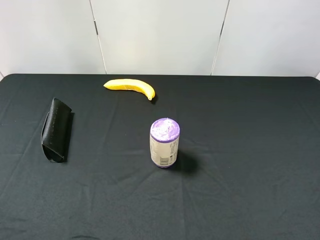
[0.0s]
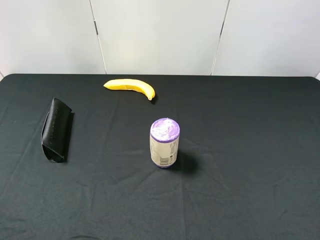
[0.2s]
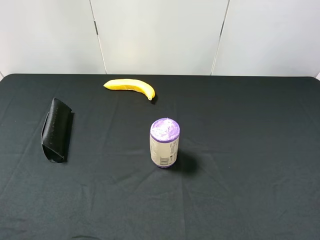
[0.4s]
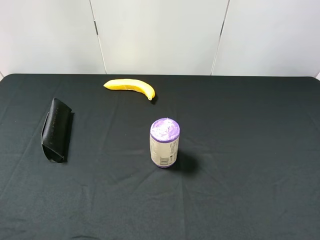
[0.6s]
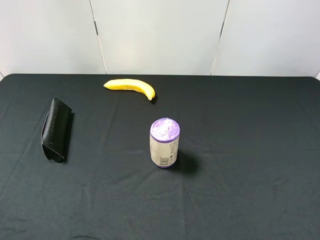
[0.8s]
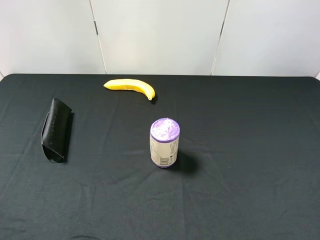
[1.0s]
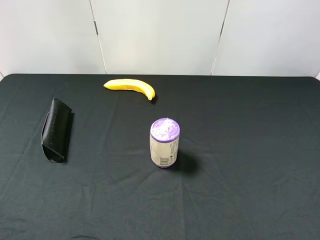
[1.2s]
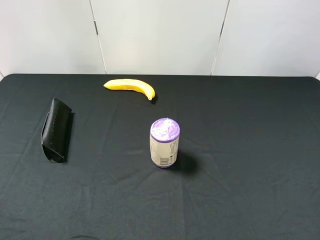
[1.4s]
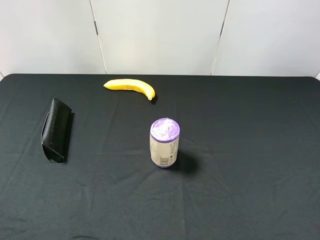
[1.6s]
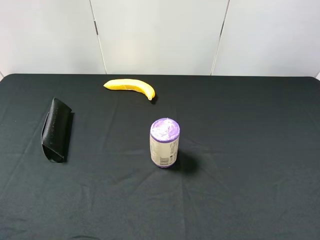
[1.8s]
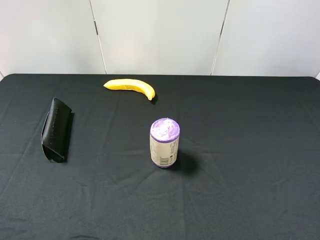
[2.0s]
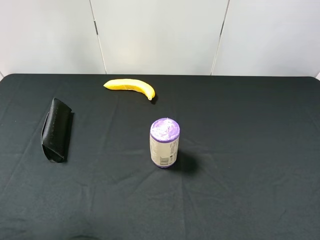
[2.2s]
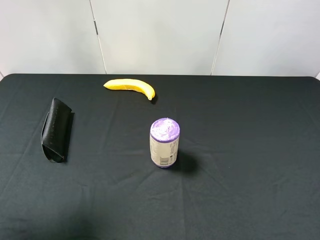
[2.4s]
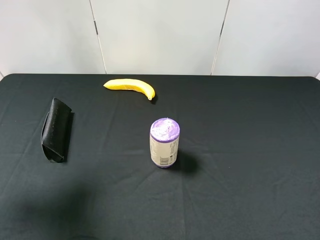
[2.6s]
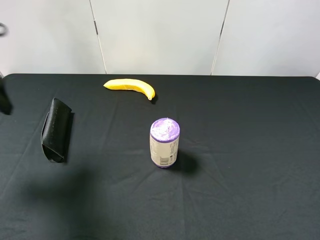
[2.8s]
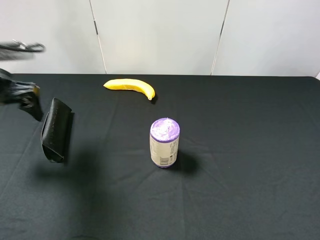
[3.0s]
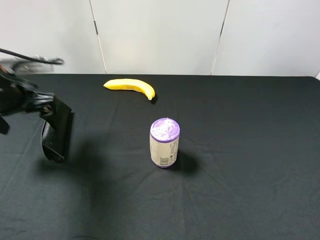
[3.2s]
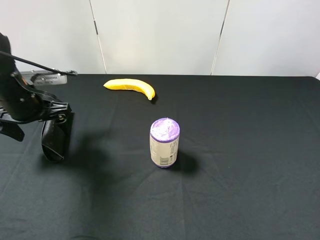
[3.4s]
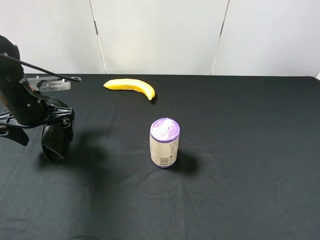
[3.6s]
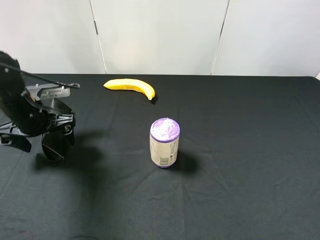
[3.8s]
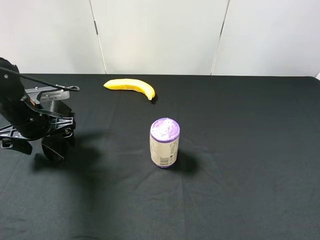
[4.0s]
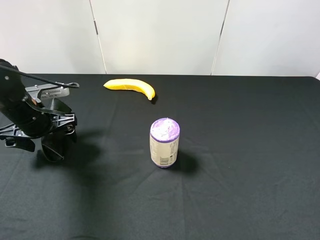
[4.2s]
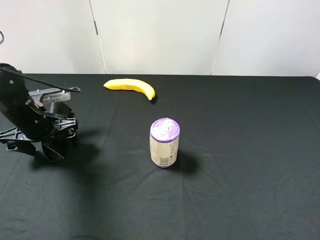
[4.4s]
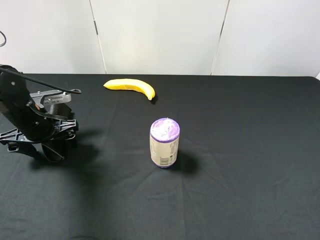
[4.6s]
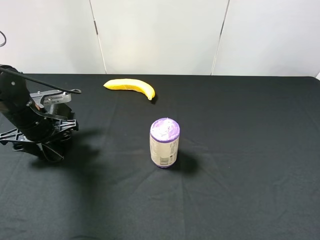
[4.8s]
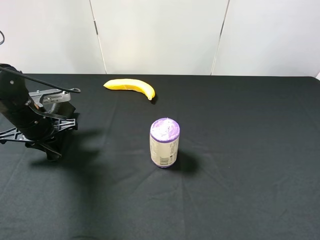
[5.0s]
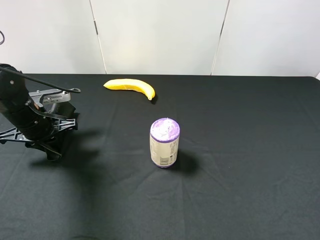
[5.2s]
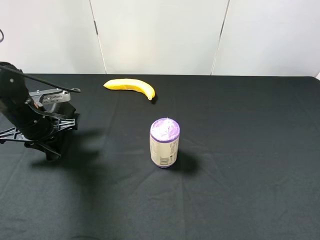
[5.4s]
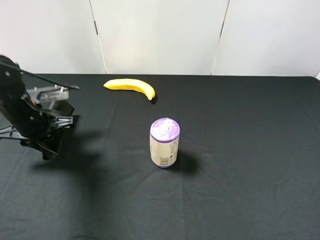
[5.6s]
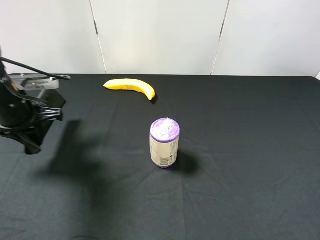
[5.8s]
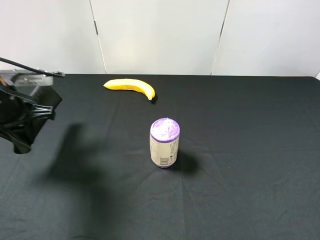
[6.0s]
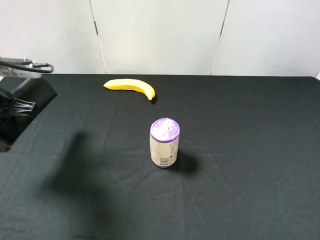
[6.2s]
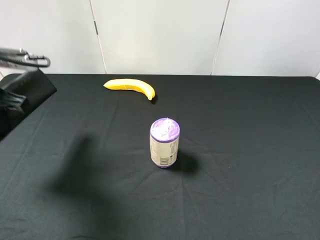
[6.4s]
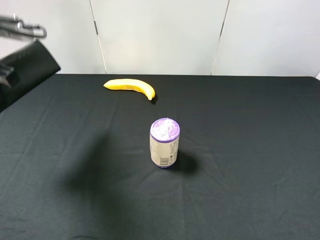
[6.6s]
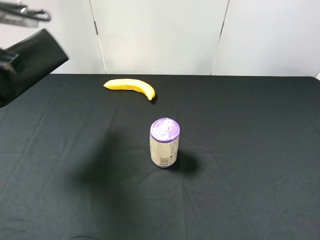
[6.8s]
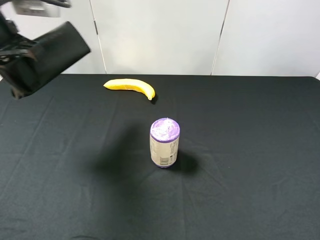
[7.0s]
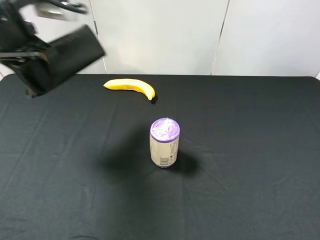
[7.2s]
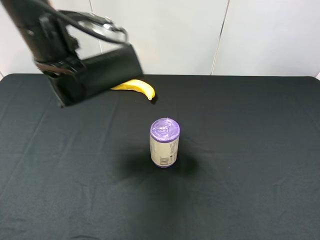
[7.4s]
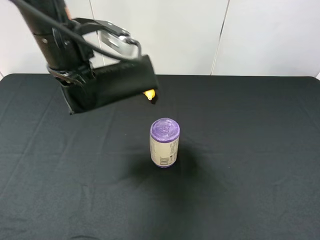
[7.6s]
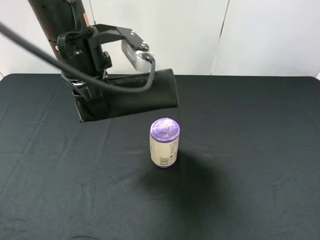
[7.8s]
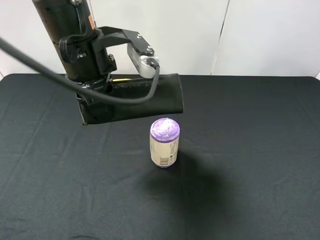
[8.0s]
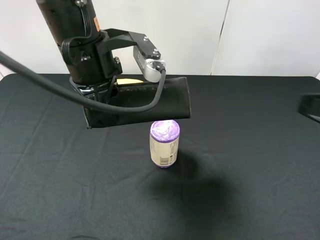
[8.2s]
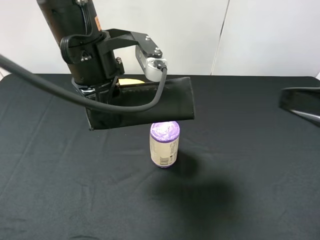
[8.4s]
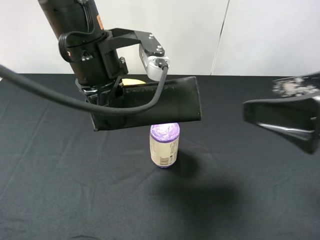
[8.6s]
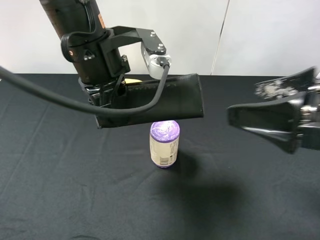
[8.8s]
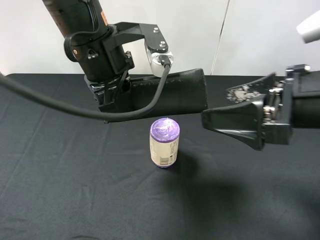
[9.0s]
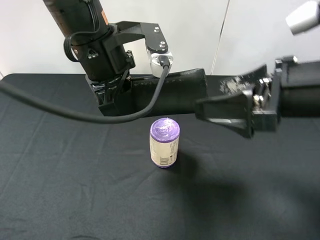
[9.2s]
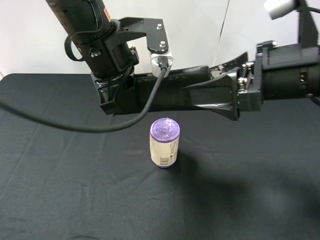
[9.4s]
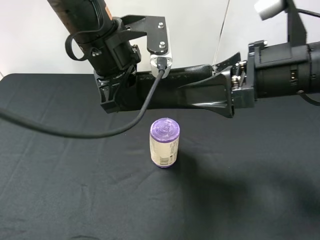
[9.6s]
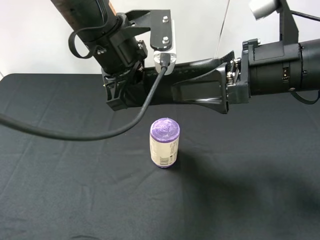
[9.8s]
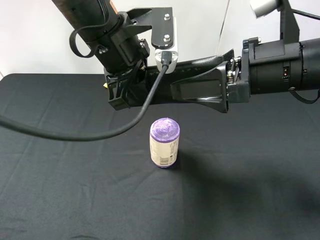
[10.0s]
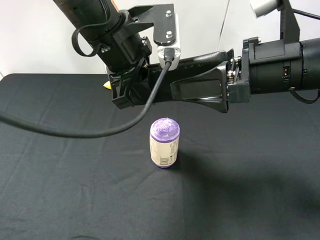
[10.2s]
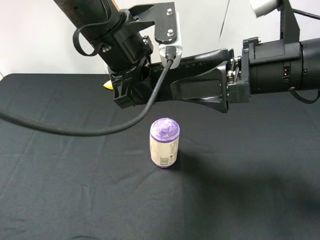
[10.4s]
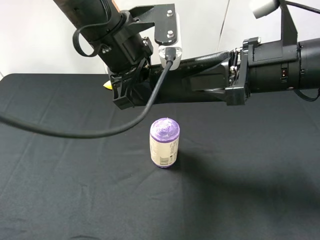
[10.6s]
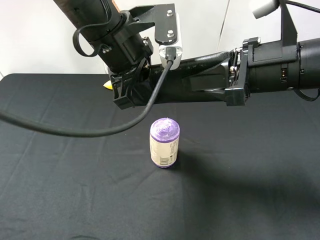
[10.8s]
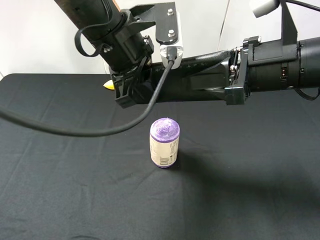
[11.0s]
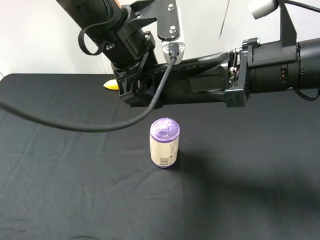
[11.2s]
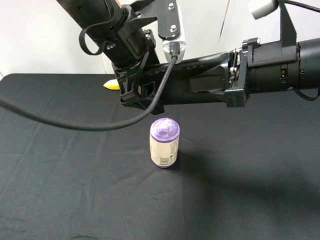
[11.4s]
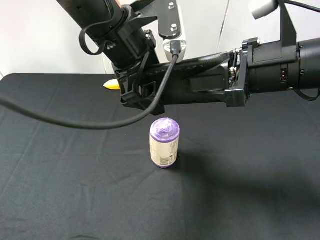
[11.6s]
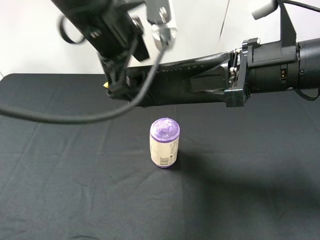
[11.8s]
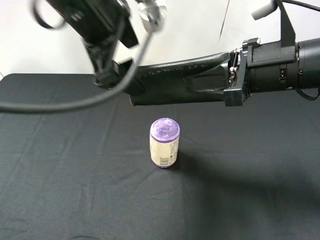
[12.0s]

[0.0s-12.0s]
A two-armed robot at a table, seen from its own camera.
Task of the whole recording: use the left gripper to pick up the item and transfer it from the left gripper to the right gripper.
0.0s to 1.6s: Both grippers stay about where they are.
1.6s to 3.0s: The left gripper heads forward, covering approximately 25 cm.
3.0s to 4.4s: The left gripper heads downward, covering about 10 cm.
4.4s to 6.0s: The left gripper travels upward by about 10 cm, and closes its fingers.
6.0s to 7.6s: The left gripper travels to the right and upward by roughly 15 cm.
7.6s to 9.0s: The right gripper shifts roughly 20 cm forward and to the left, while the left gripper is displaced to the right by roughly 5 cm.
9.0s to 10.4s: The right gripper moves forward, approximately 5 cm.
10.4s to 12.0s: The right gripper closes up. The left gripper shifts some 5 cm upward, and opens its fingers.

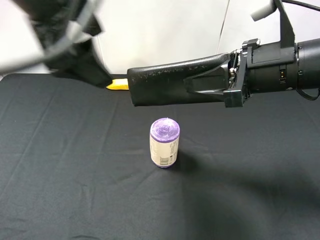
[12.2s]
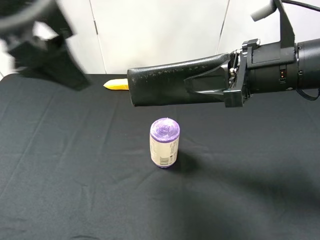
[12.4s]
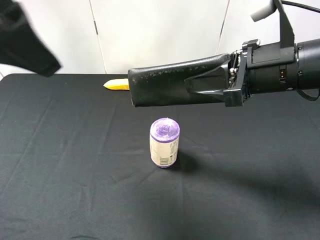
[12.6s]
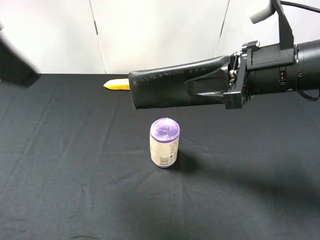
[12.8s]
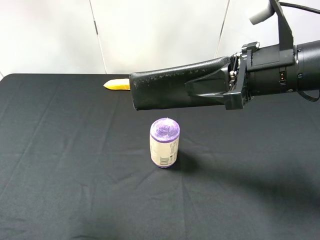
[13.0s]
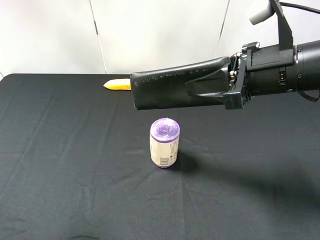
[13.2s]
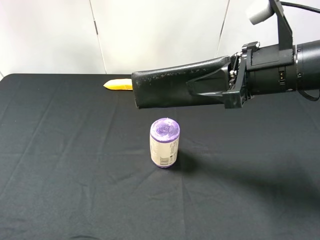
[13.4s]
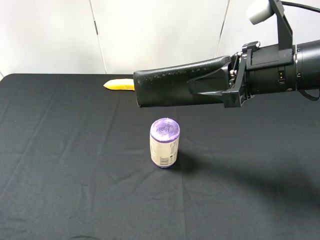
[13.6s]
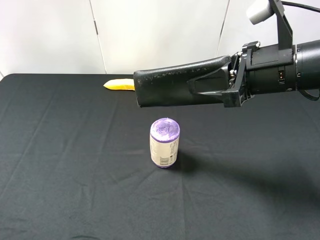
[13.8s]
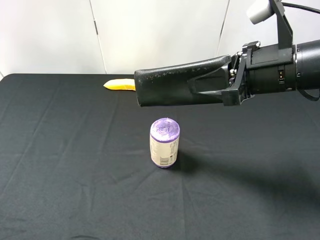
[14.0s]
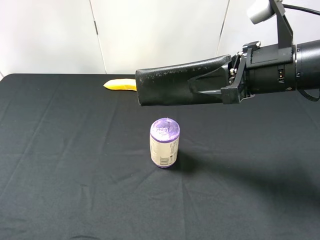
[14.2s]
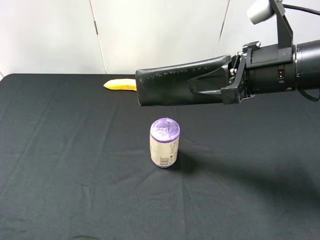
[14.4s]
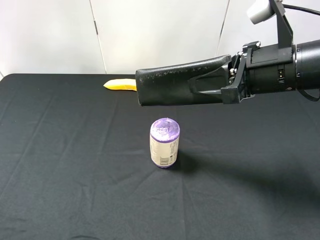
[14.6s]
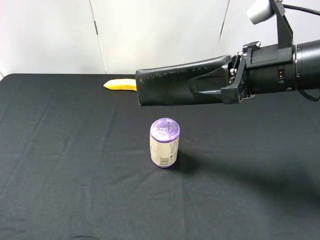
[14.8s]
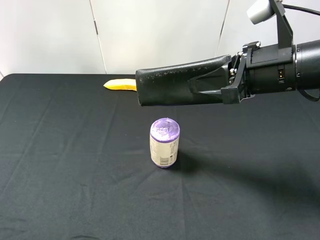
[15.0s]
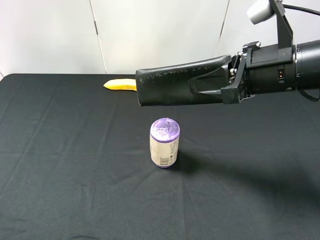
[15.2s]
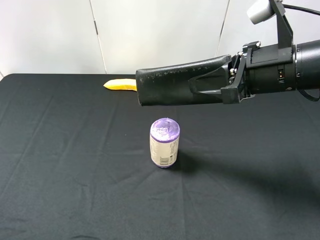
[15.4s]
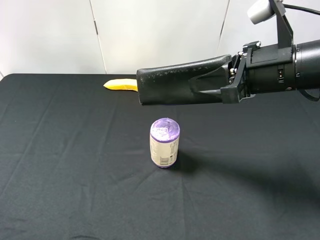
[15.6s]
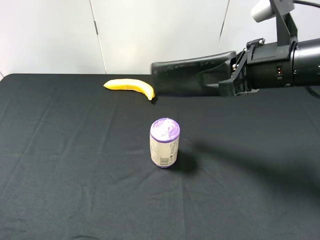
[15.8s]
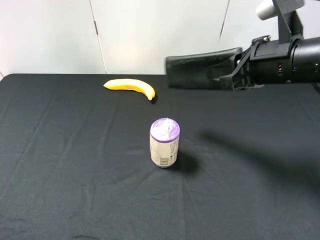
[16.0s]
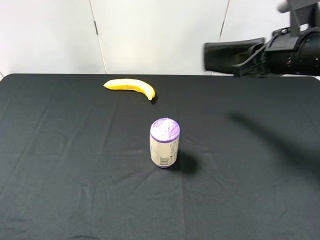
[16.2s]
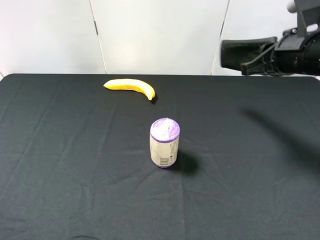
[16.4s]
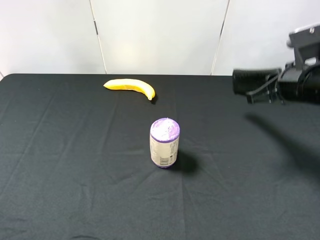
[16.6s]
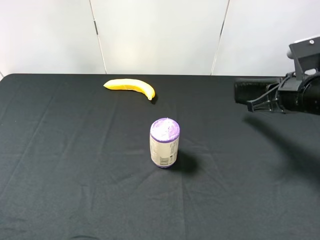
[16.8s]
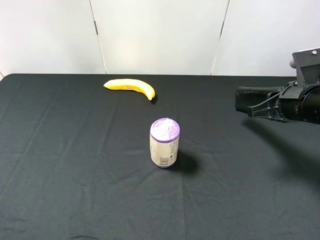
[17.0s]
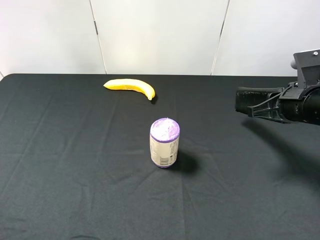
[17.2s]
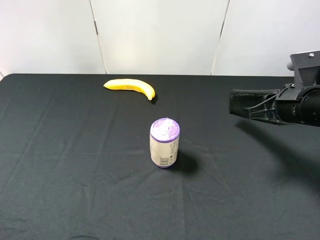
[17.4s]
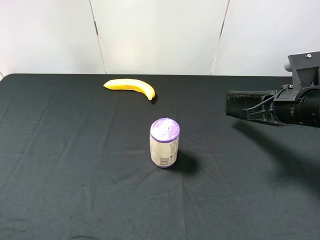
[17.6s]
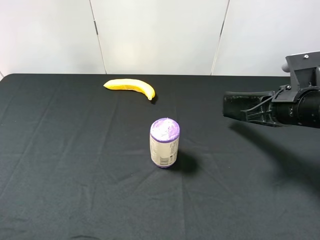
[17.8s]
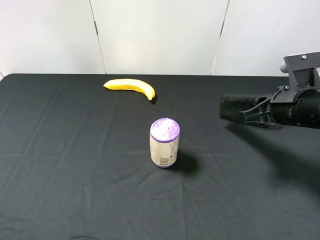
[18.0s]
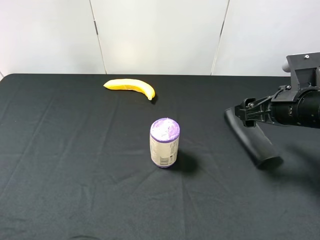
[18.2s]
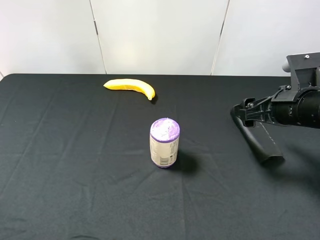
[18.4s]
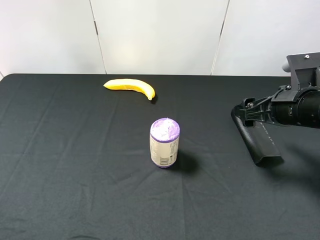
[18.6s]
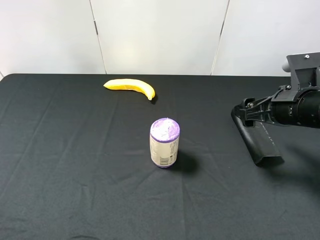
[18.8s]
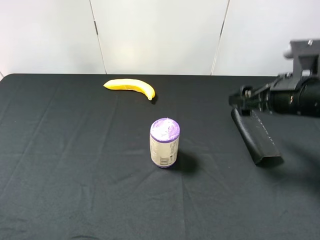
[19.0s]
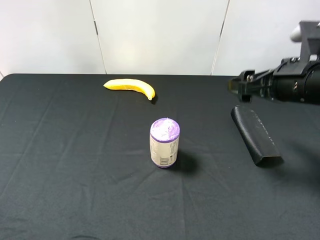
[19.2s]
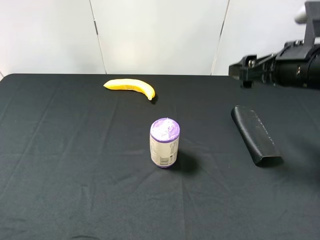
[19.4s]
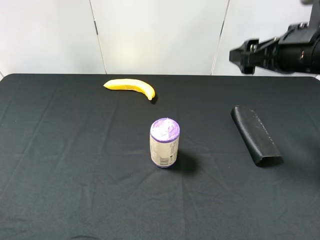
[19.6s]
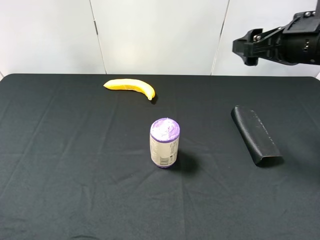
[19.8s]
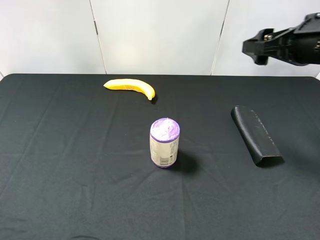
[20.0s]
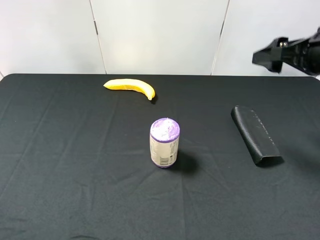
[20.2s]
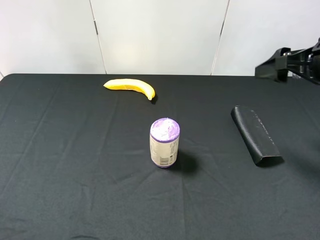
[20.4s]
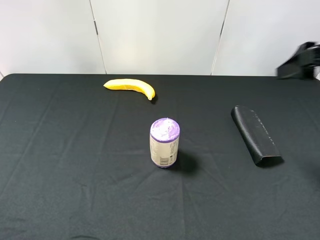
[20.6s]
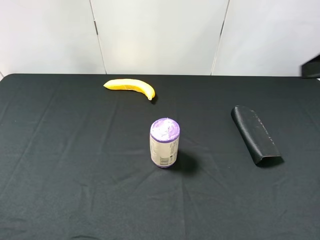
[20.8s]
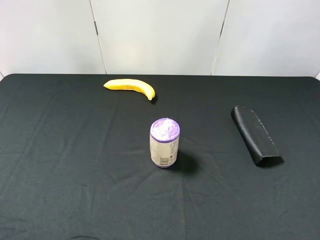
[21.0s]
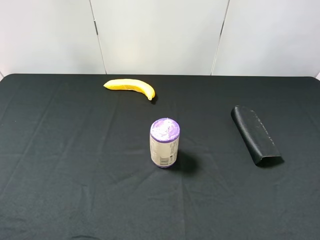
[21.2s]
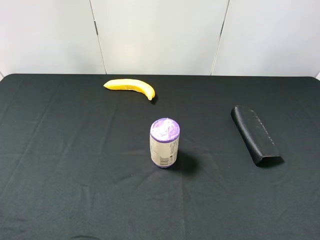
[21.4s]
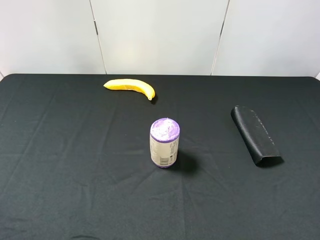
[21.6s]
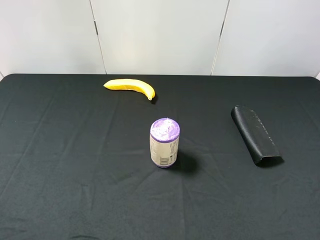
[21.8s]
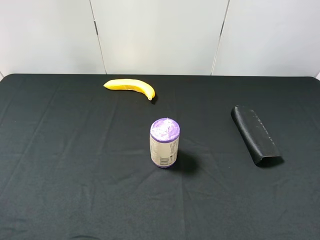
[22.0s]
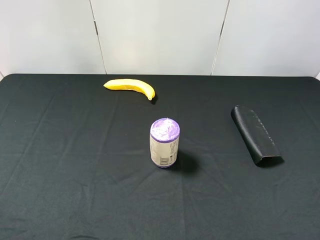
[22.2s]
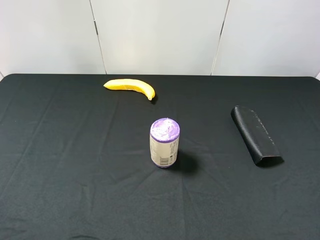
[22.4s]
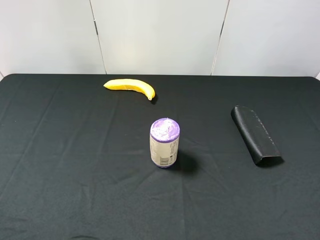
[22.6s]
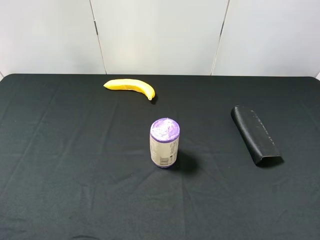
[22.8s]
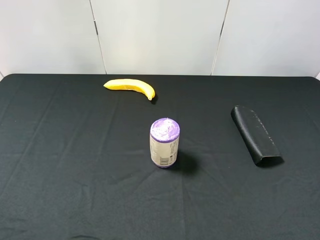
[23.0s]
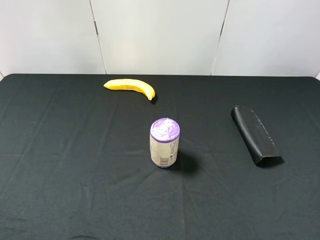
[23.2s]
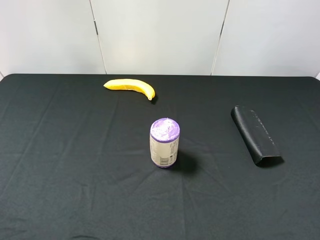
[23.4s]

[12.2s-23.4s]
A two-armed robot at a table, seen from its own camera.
Task of the whole recording: use the left gripper to pick up the item and transfer it from the left gripper to the right gripper.
12.2s to 13.8s: The left gripper travels backward, to the left and downward by some 30 cm.
13.8s to 15.4s: The grippers make only small movements.
15.4s to 17.0s: The right gripper shifts some 10 cm to the right and downward.
17.0s to 18.6s: The right gripper opens up.
18.6s to 20.2s: The right gripper shifts roughly 10 cm upward.
20.2s to 21.8s: The right gripper travels backward by some 25 cm.
21.8s to 23.4s: Neither gripper changes place.
